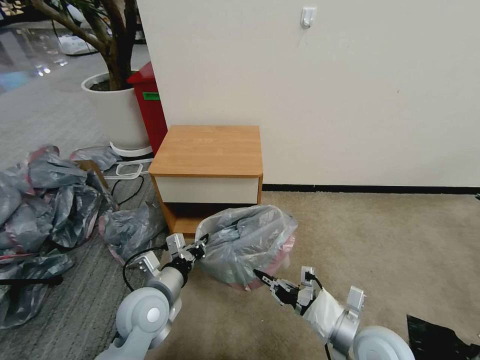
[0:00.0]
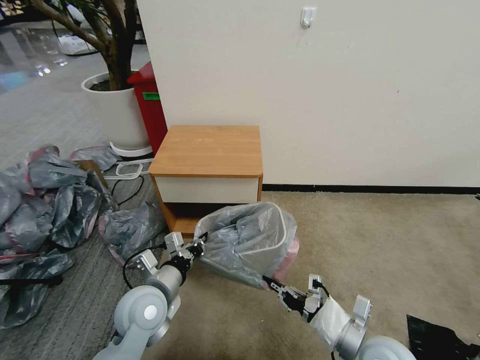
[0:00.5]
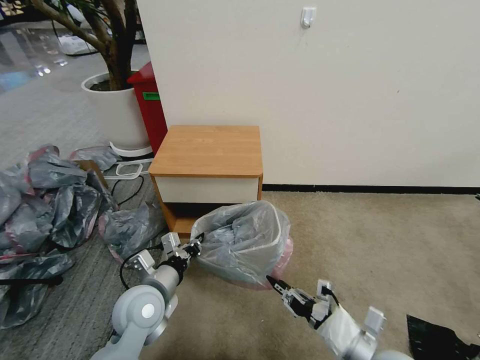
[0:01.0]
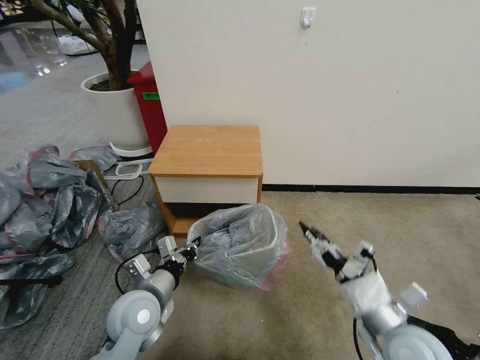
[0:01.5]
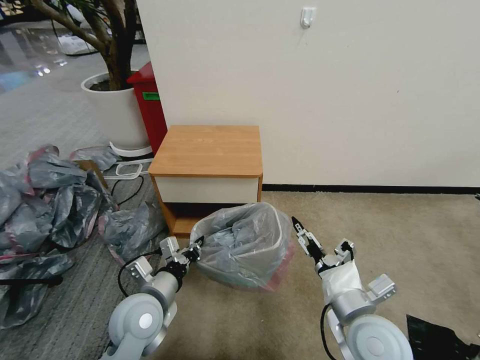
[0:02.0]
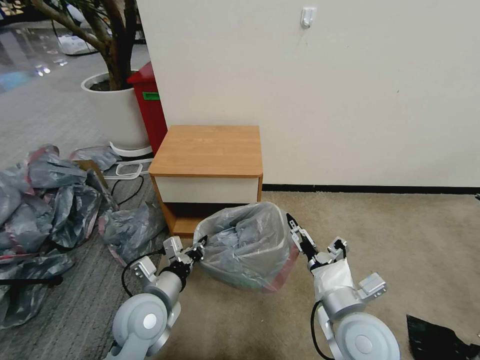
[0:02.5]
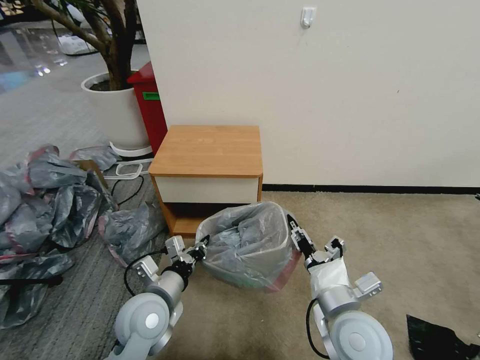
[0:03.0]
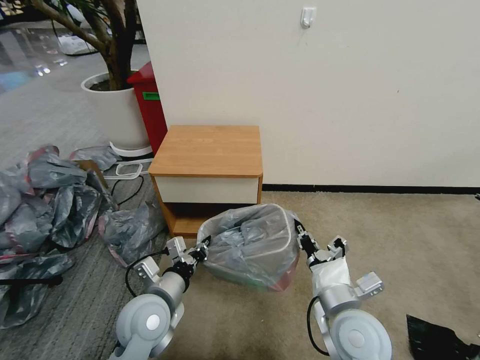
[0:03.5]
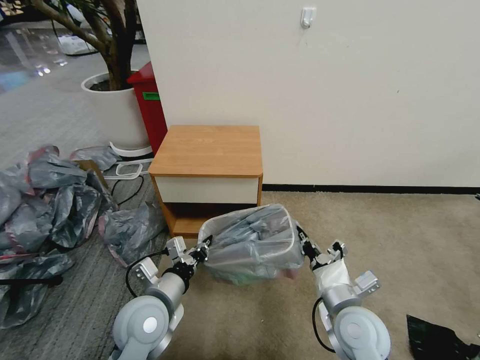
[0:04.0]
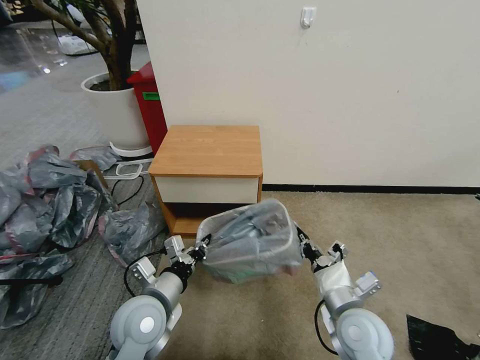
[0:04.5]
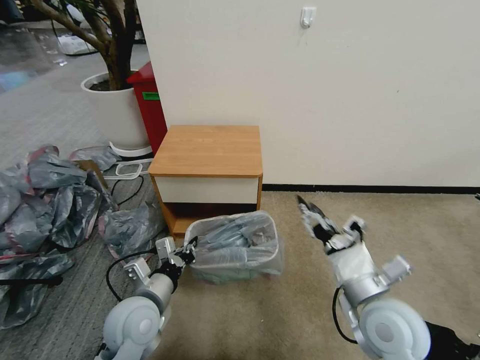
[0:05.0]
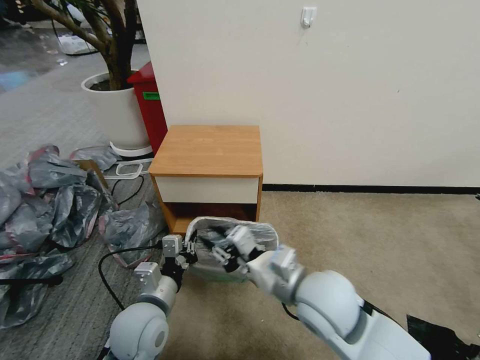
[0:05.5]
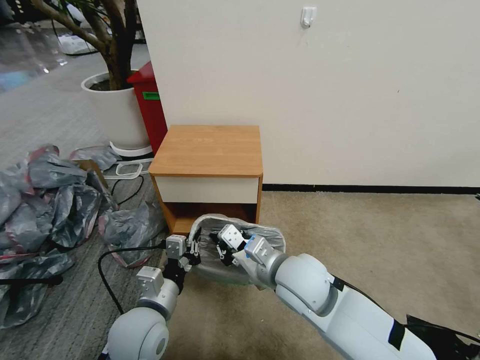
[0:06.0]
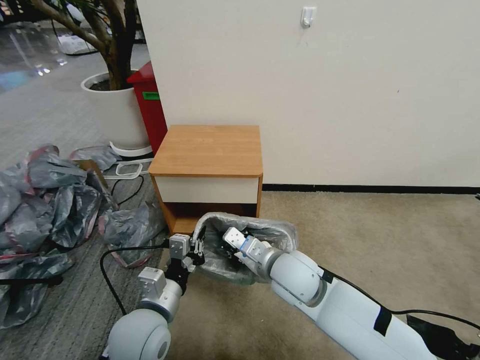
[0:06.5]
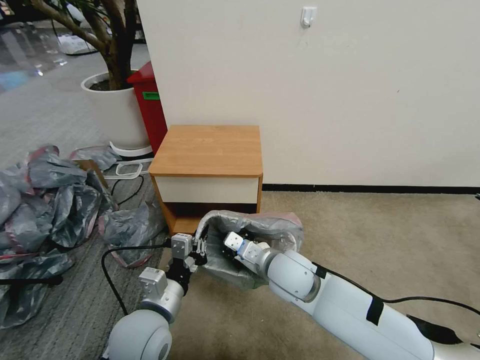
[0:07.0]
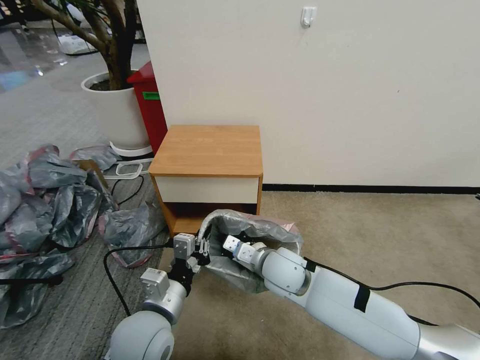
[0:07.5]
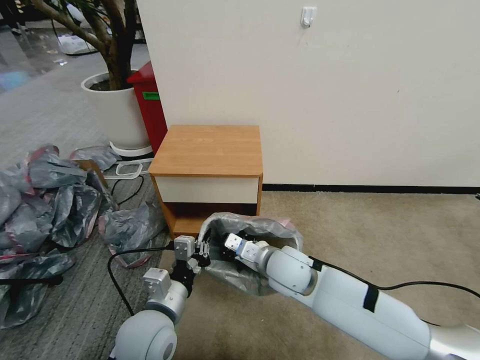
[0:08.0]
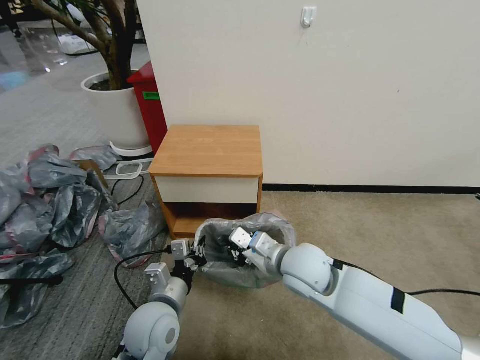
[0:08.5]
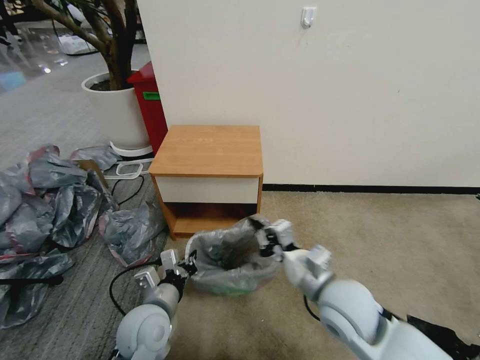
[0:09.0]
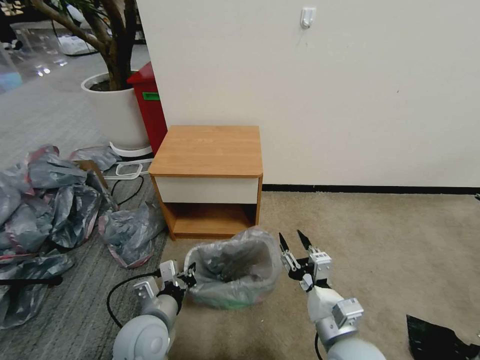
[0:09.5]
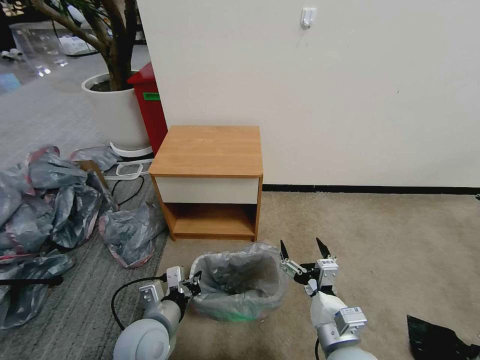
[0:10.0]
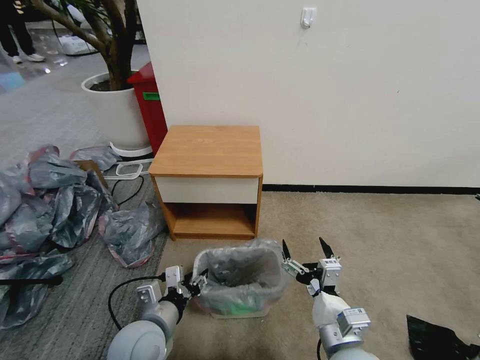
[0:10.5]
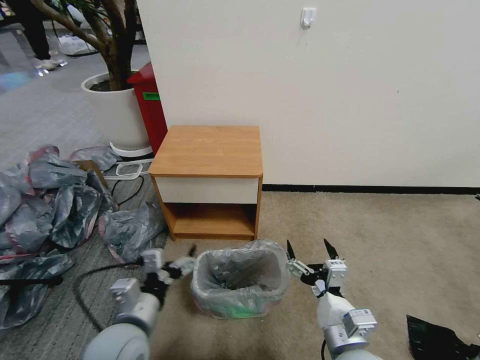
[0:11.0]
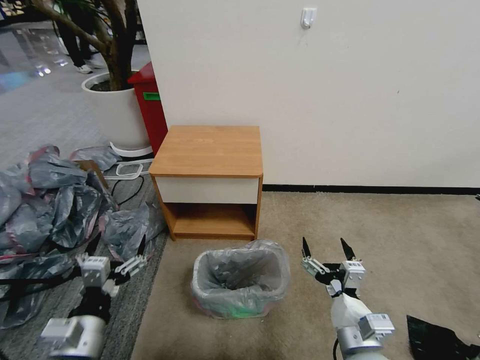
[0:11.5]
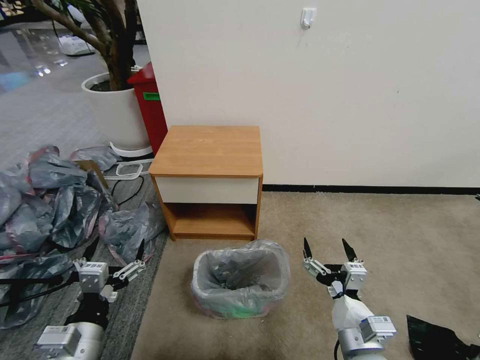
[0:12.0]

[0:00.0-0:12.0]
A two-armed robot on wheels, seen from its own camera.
Task of the whole recording: Pick up the garbage bag from the table and place it over the trash can.
0:00.0 to 0:02.0: The right gripper ends up roughly 5 cm from where it was, and opens up.
0:02.0 to 0:04.0: The right gripper shifts by some 5 cm, and closes up.
0:04.0 to 0:06.0: The right gripper is displaced to the left, upward and forward by approximately 15 cm, and opens, then closes once more.
0:06.0 to 0:08.0: The right gripper is displaced downward by some 5 cm.
0:08.0 to 0:10.0: The left gripper moves downward, about 5 cm. The right gripper is displaced backward and to the right by some 20 cm, and opens its fingers.
0:10.0 to 0:12.0: The left gripper shifts approximately 15 cm to the left, backward and upward, and opens up.

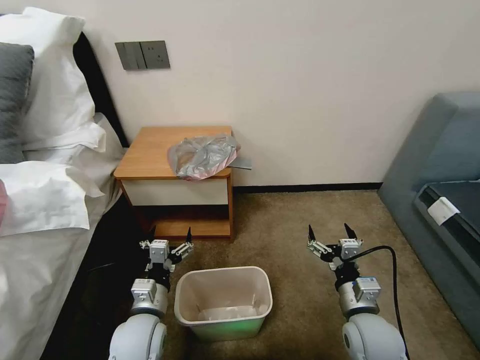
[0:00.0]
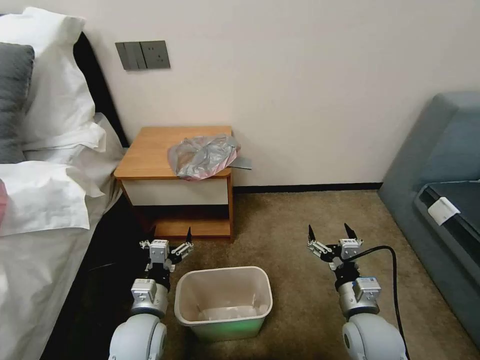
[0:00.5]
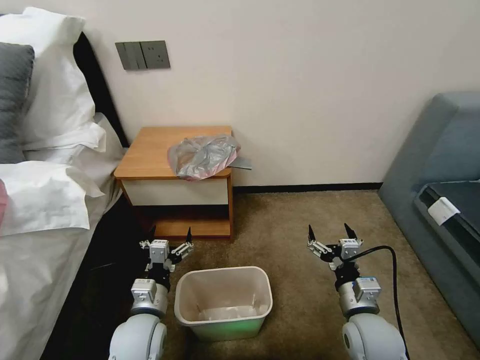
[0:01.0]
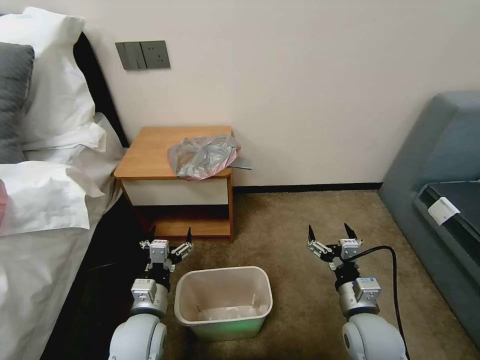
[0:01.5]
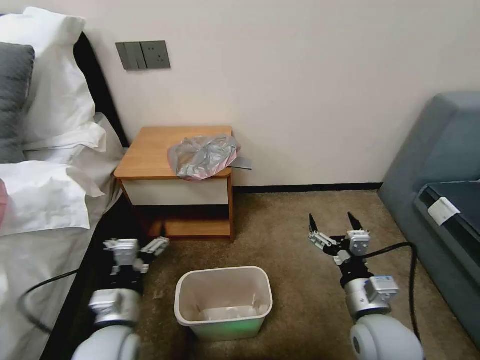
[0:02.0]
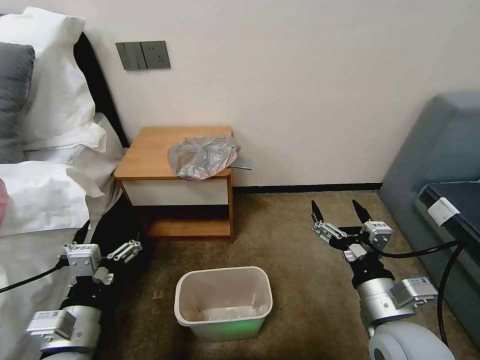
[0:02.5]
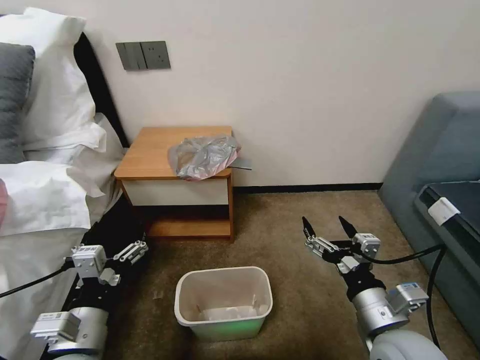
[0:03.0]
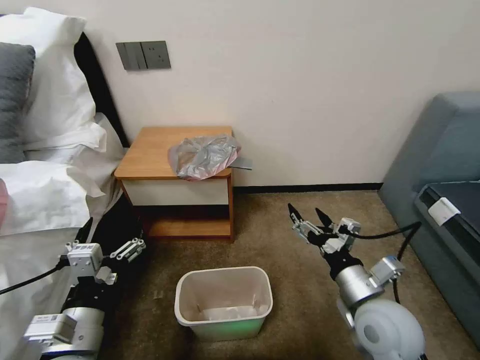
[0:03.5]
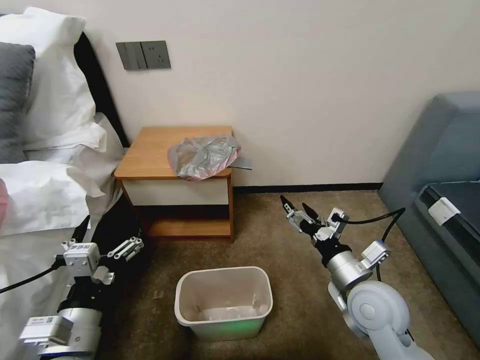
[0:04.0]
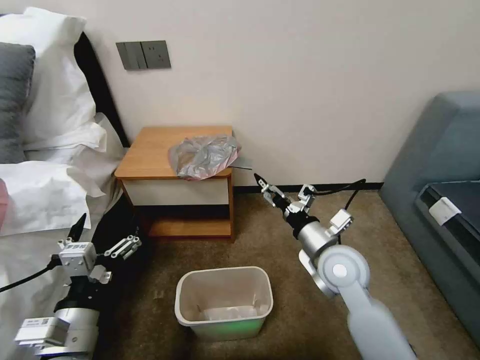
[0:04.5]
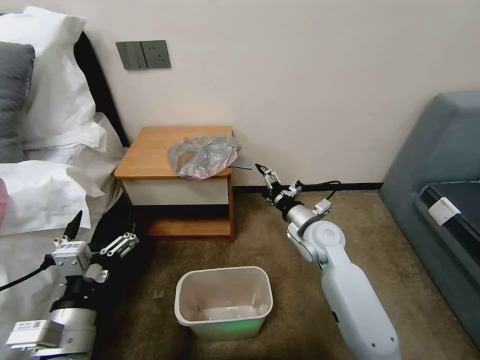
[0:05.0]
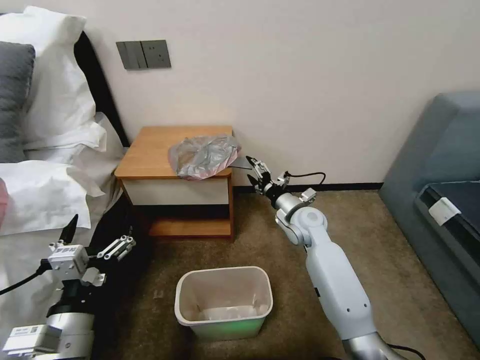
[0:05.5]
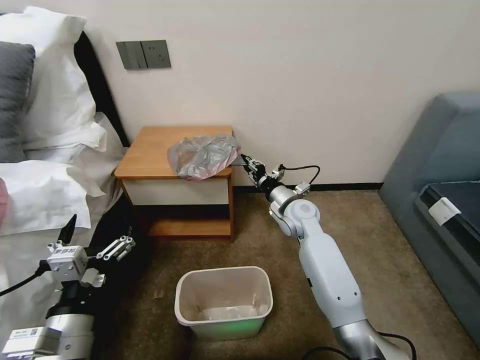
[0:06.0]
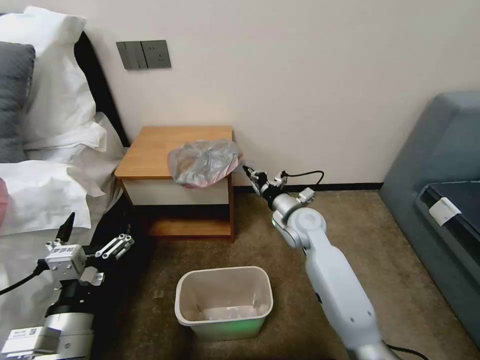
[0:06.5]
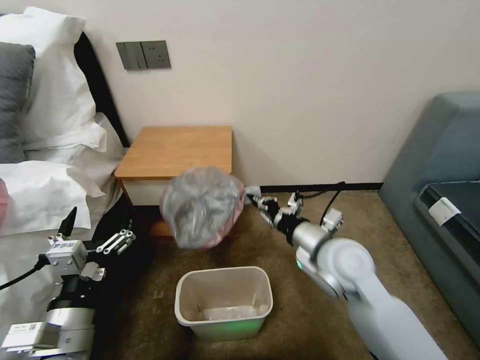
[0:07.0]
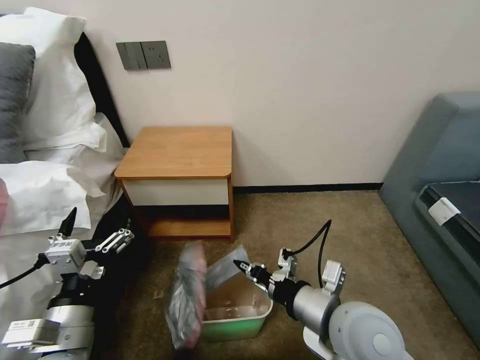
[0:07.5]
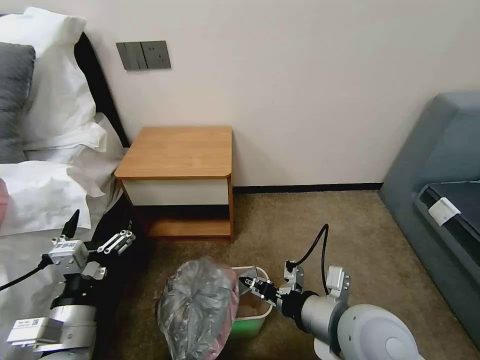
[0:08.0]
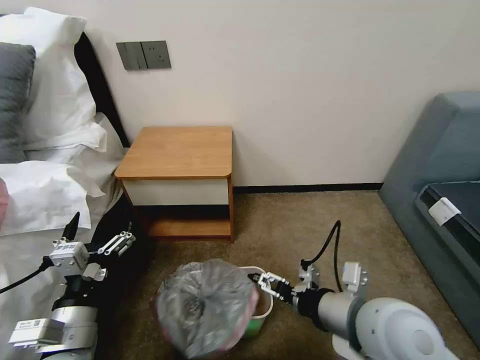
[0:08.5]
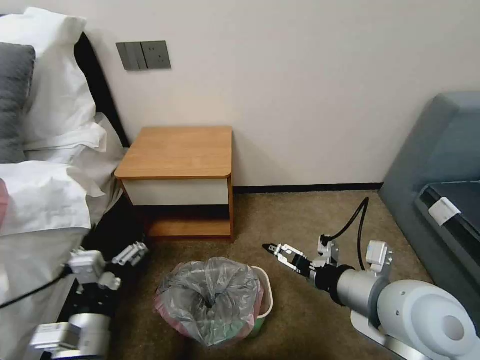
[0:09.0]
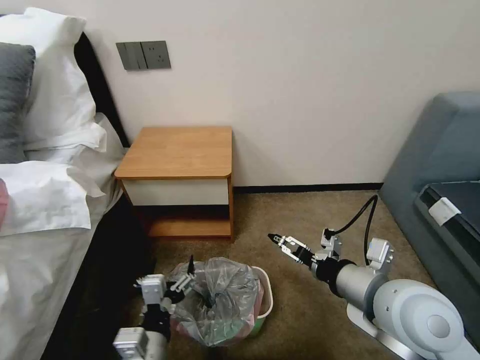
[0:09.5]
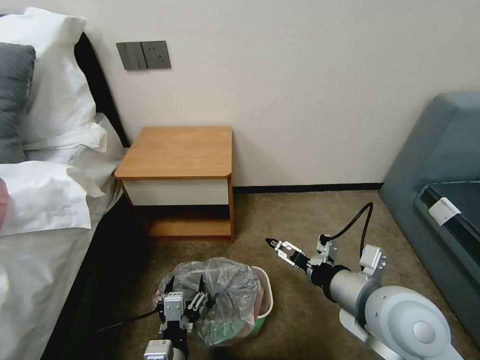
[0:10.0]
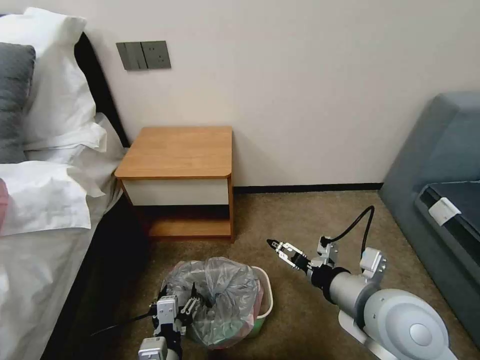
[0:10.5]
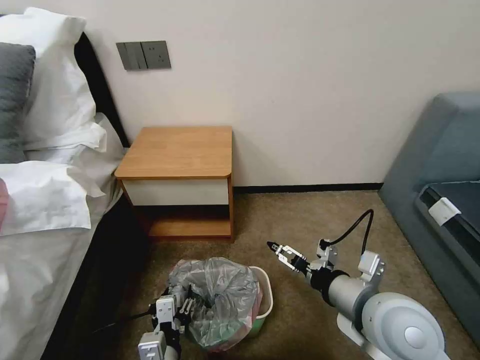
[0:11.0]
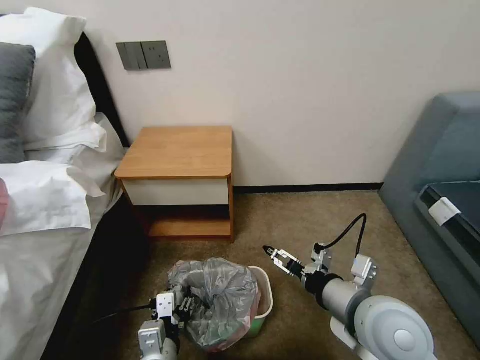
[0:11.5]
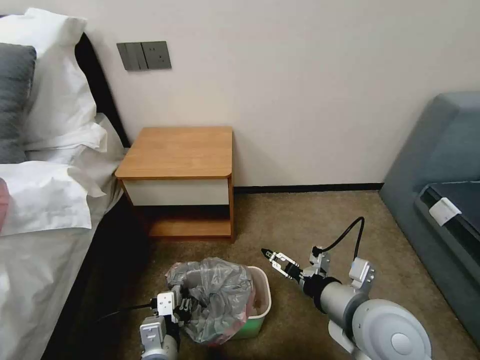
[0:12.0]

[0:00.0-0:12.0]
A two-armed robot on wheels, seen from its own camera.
Task of the whole recording: Pick up the garbage bag from the table and place it over the trash can.
0:02.0 to 0:04.0: The right gripper changes place by about 5 cm. Meanwhile the left gripper shifts some 10 cm upward and backward.
0:04.0 to 0:06.0: The right gripper heads forward, covering some 25 cm, and closes up.
0:06.0 to 0:08.0: The right gripper heads backward, covering roughly 30 cm.
0:08.0 to 0:10.0: The right gripper moves roughly 5 cm, and opens. Meanwhile the left gripper is displaced to the right and downward by approximately 15 cm.
0:10.0 to 0:12.0: The left gripper closes.

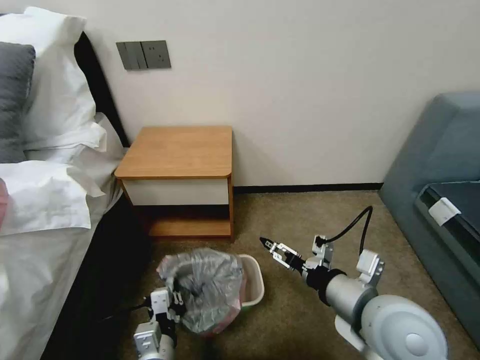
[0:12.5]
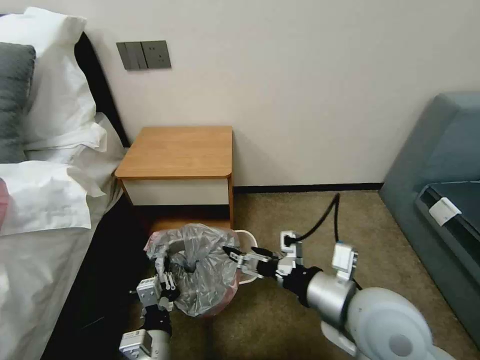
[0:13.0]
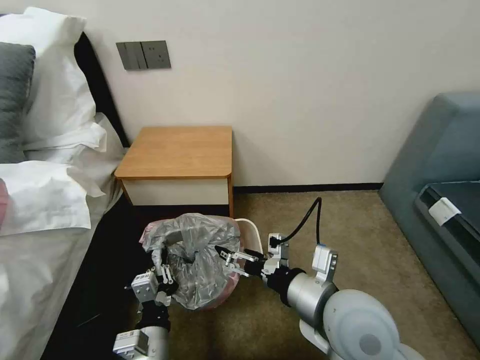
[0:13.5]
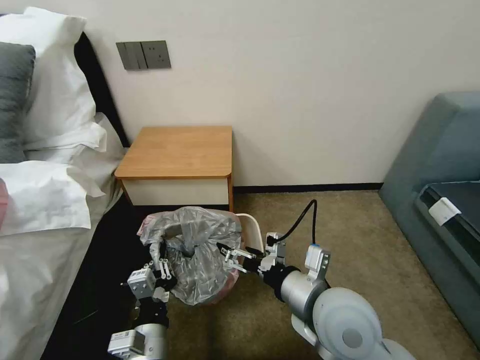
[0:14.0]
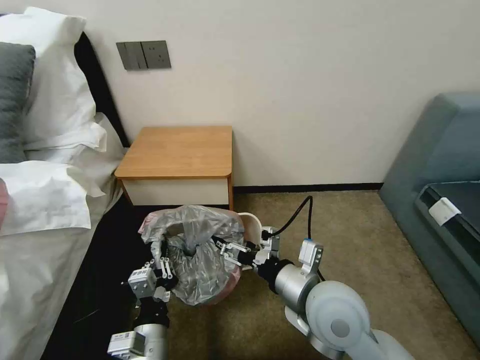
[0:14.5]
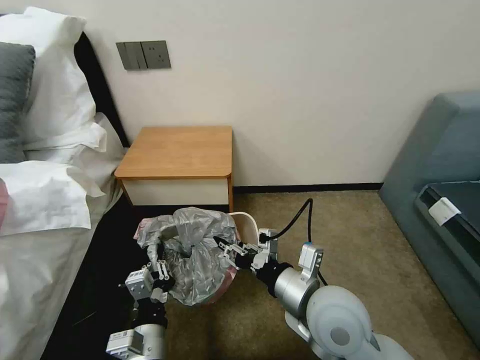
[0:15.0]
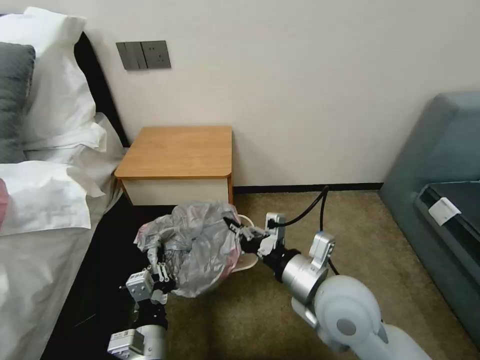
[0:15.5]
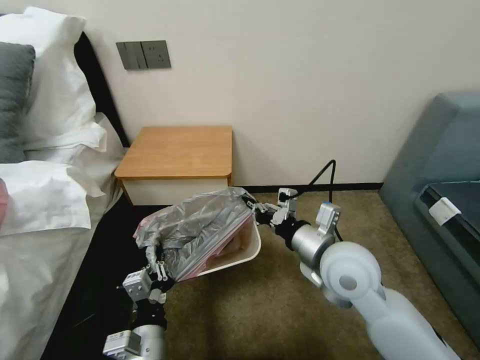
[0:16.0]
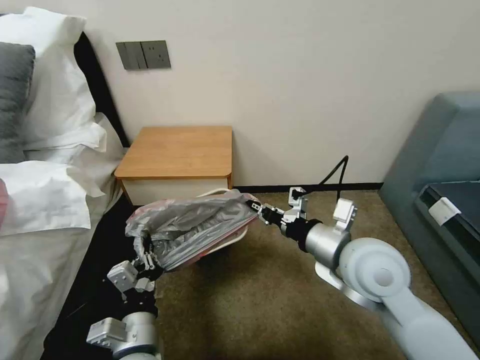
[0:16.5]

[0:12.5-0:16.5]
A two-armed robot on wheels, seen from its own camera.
Task of the whole recording: Pick up the garbage bag from the table and place it over the trash can.
0:12.5 to 0:14.5: The right gripper is displaced to the left by approximately 5 cm.
0:14.5 to 0:16.5: The right gripper is displaced to the right, upward and forward by roughly 10 cm, and closes its fingers.
